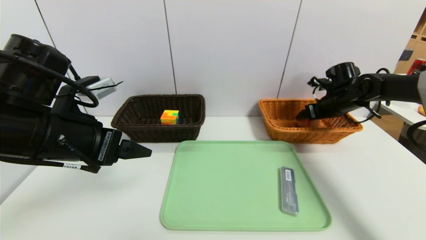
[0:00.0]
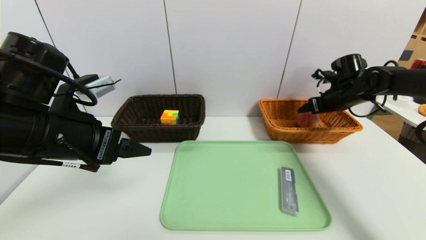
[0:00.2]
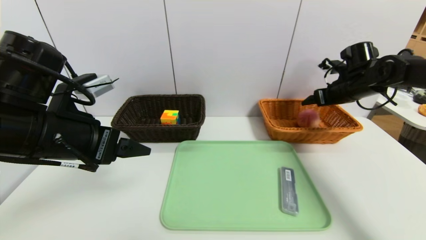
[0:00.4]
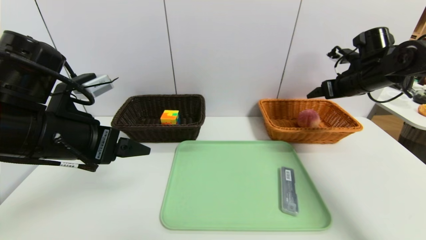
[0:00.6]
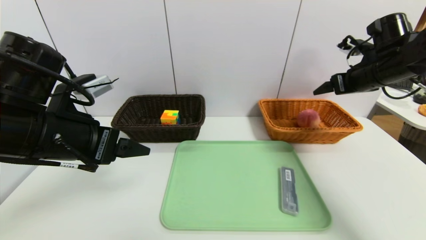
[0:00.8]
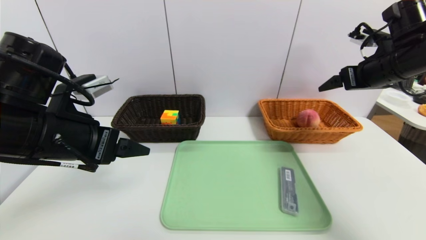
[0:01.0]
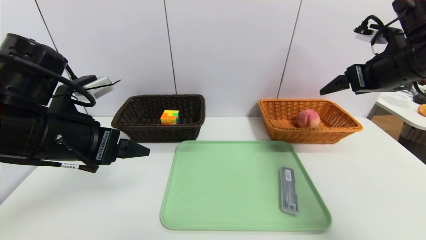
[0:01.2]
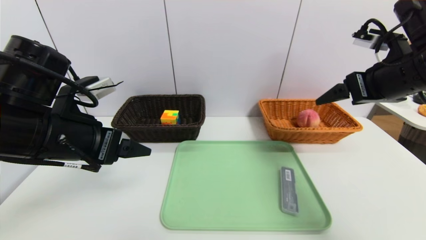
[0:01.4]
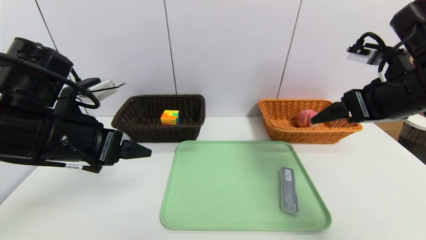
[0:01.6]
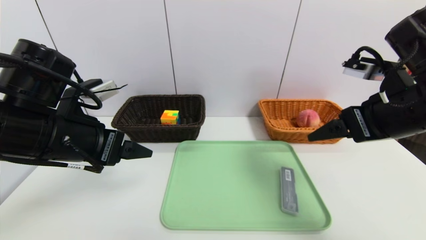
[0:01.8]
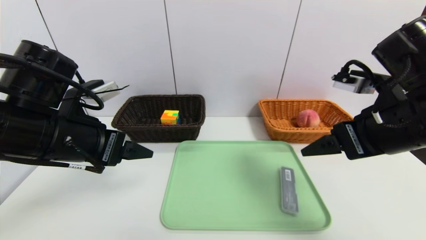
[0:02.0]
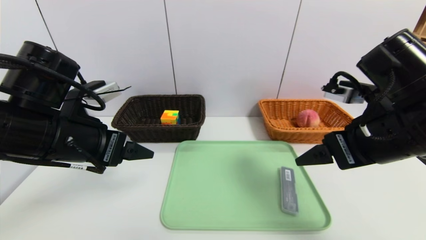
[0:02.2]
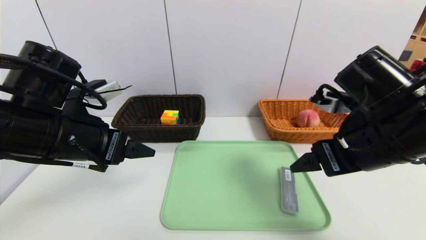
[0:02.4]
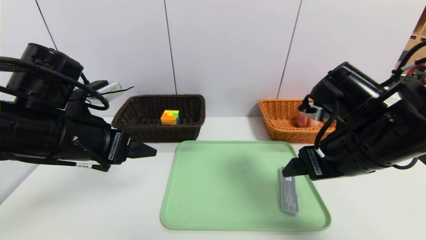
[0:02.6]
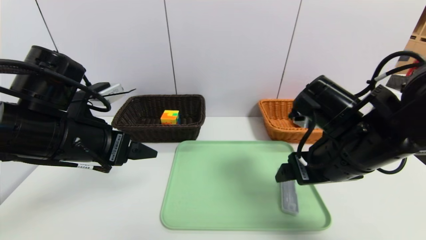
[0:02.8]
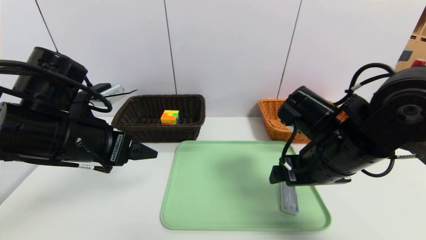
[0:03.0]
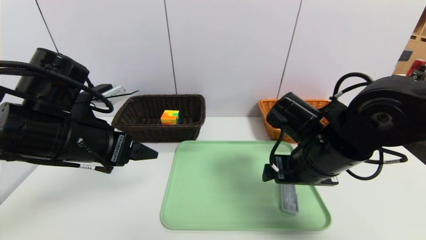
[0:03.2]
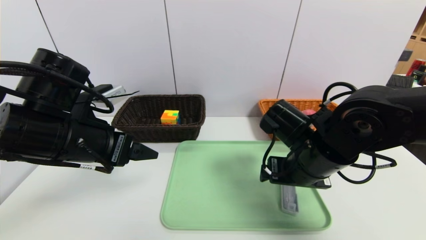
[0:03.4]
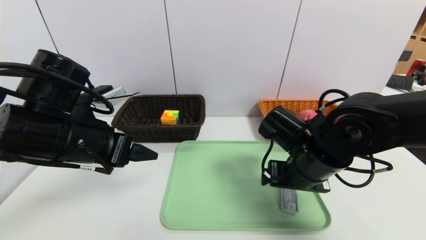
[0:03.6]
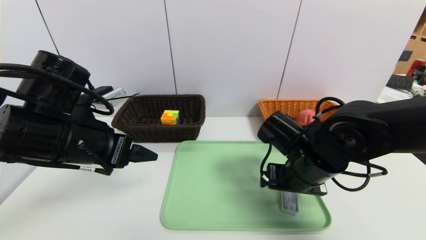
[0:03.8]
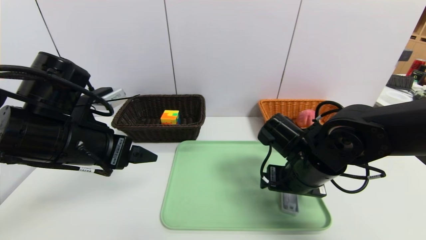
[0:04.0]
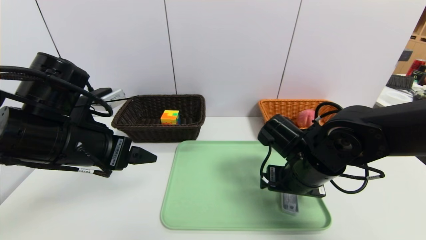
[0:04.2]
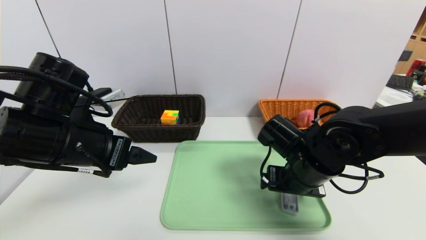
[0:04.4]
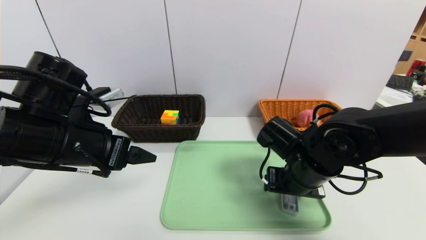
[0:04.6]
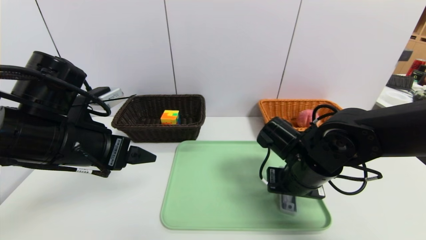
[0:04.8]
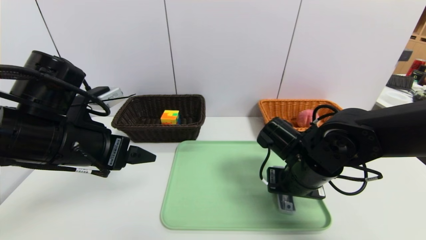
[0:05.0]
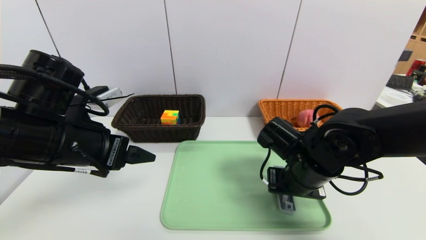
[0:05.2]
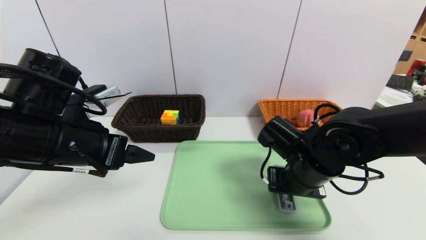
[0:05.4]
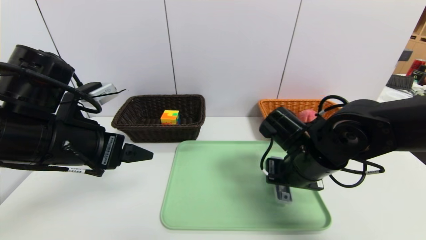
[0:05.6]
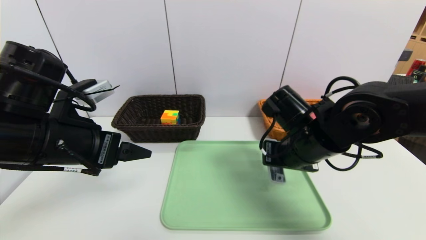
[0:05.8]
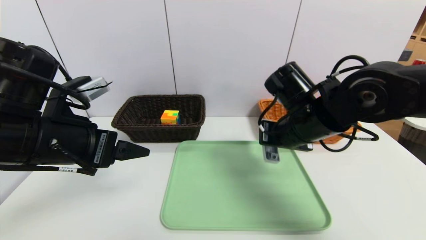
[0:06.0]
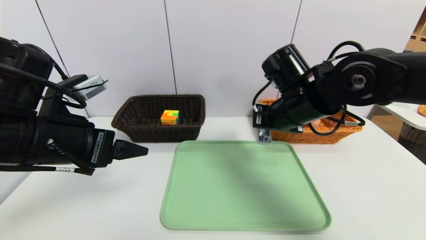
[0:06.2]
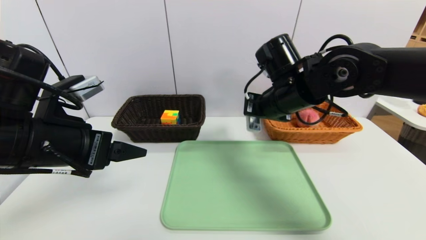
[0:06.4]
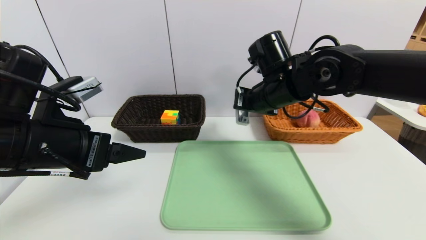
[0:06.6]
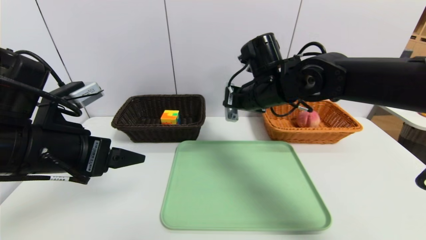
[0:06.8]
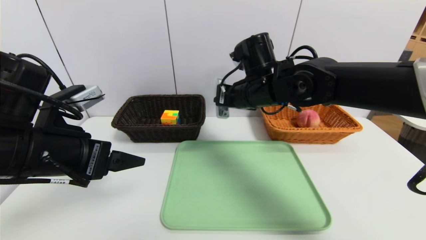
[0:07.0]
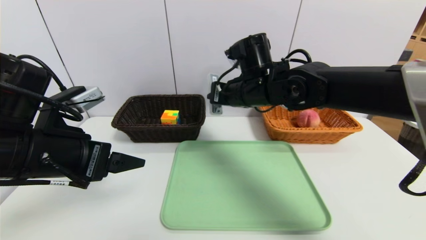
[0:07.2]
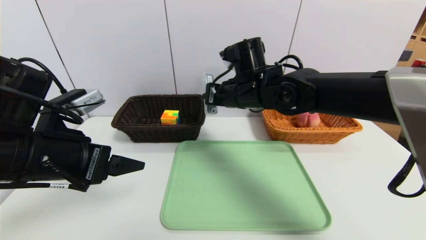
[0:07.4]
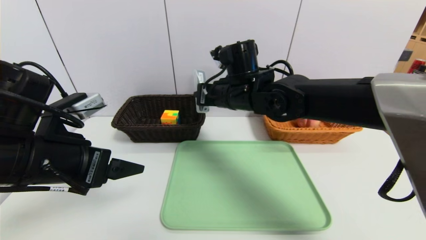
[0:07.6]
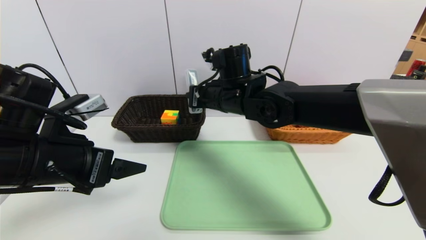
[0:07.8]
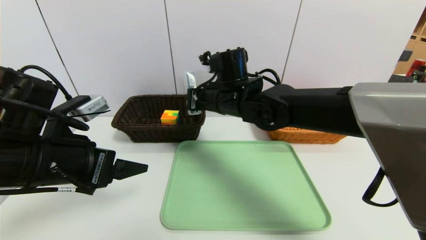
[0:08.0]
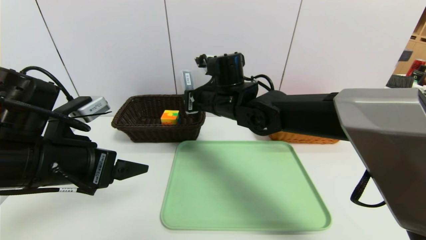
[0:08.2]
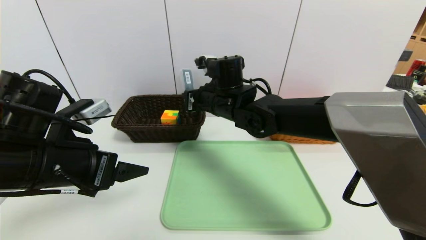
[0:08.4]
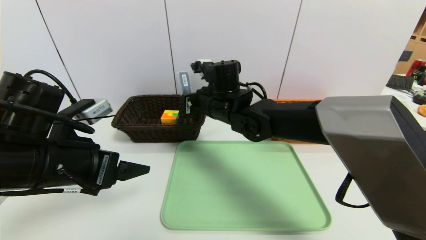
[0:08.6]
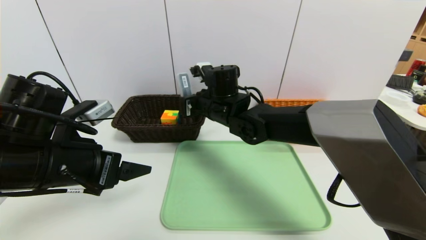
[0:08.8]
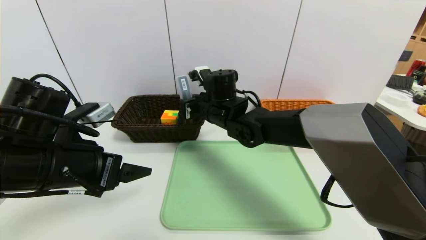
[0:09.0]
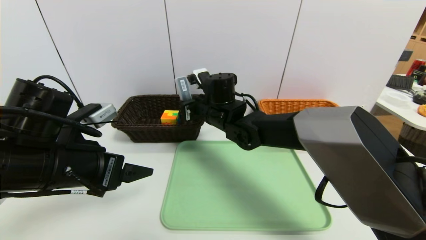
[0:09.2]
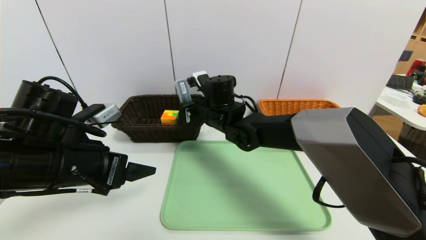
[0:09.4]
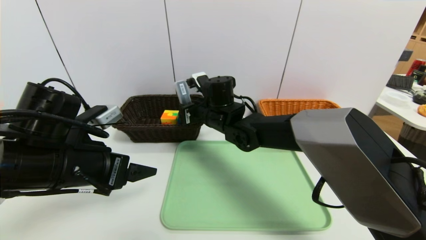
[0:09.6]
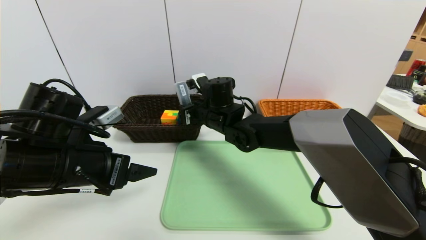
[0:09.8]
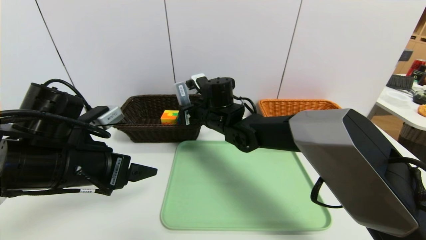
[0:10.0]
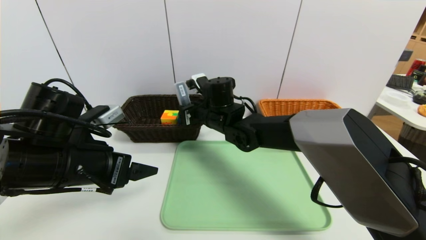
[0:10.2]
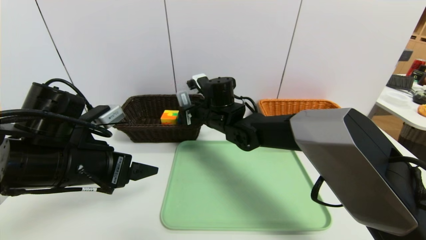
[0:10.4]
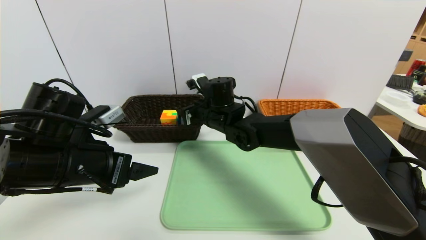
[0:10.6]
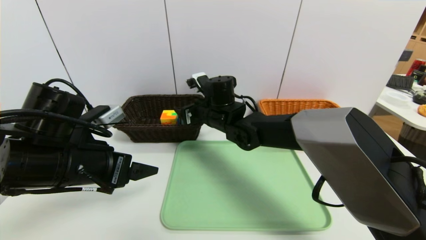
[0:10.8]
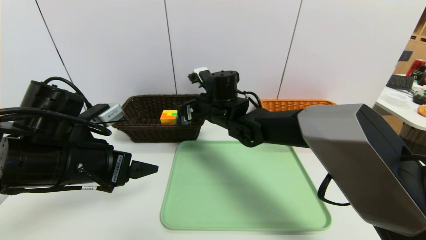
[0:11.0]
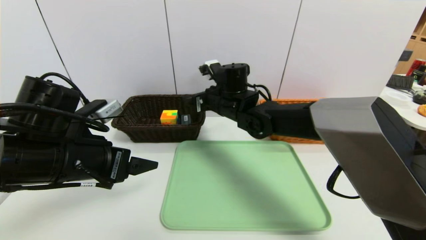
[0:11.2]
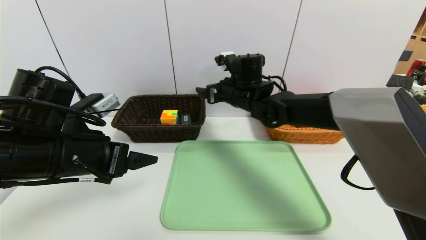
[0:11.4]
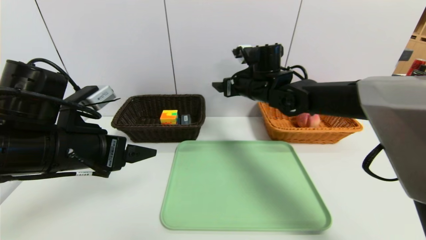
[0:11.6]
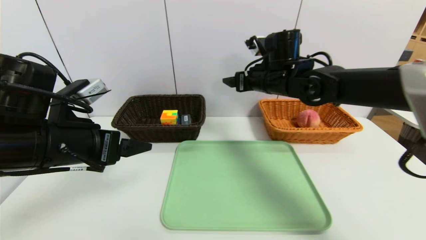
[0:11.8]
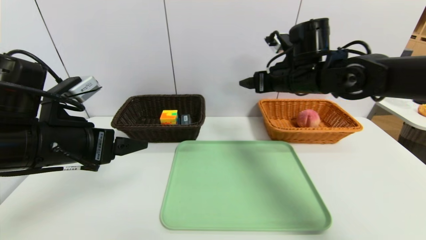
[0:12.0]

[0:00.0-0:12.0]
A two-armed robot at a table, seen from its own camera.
Task of the whole recording: place the food in the right basket with the right gripper, and place the non food items in the left basket with the left gripper.
0:00.0 to 0:01.6: The right gripper is displaced backward and upward by roughly 25 cm.
0:01.6 to 0:03.0: The right gripper moves to the left and downward, roughly 15 cm.
0:03.0 to 0:04.4: The right gripper heads downward, covering roughly 5 cm.
0:04.4 to 0:06.0: The right gripper is displaced upward by roughly 10 cm, and closes.
0:06.0 to 0:07.6: The right gripper goes some 15 cm to the left and forward.
0:07.6 to 0:09.0: The right gripper shifts about 5 cm downward.
0:09.0 to 0:10.4: The grippers move only a little.
0:10.4 to 0:12.0: The right gripper is displaced to the right and upward by approximately 20 cm, and opens its fingers.

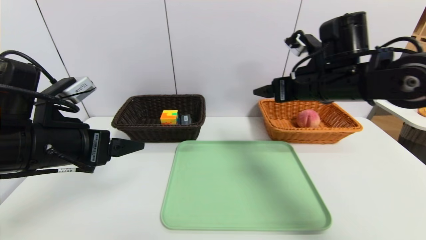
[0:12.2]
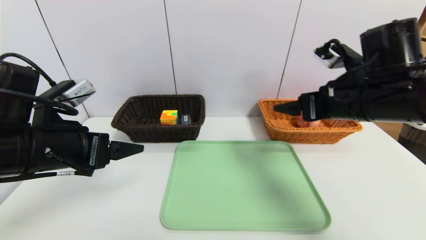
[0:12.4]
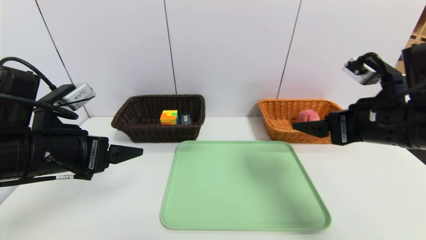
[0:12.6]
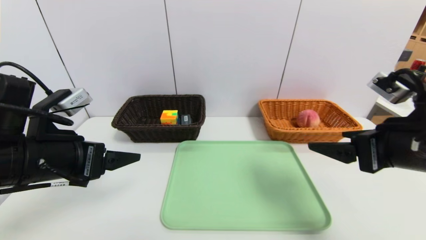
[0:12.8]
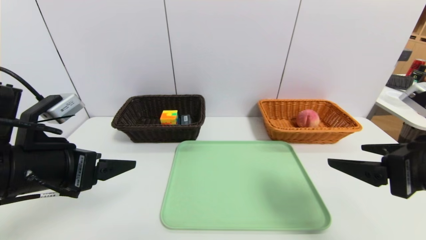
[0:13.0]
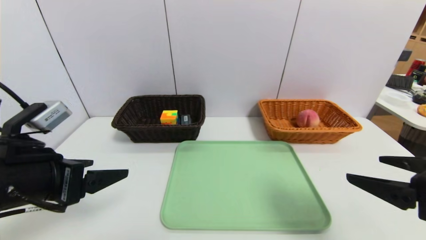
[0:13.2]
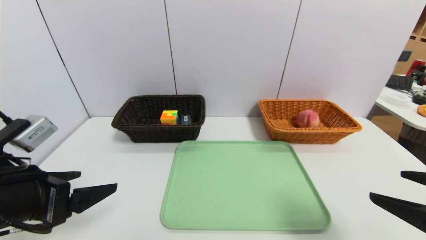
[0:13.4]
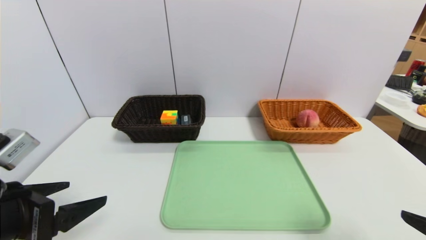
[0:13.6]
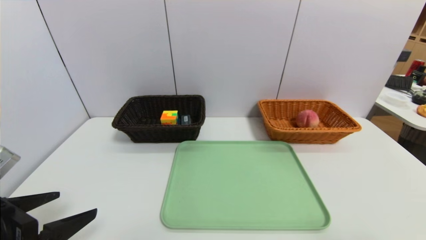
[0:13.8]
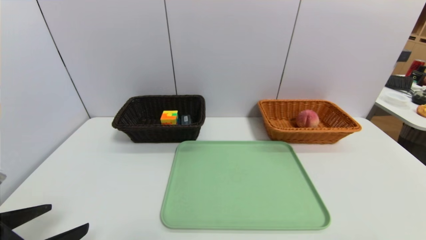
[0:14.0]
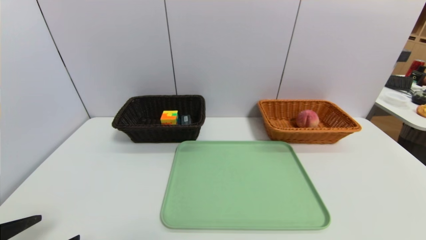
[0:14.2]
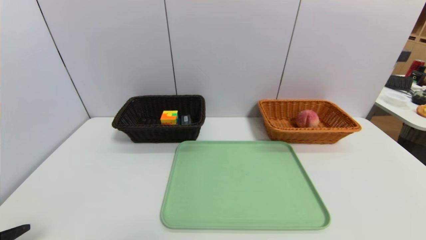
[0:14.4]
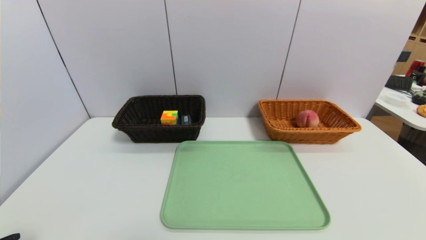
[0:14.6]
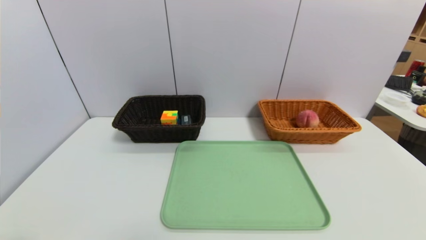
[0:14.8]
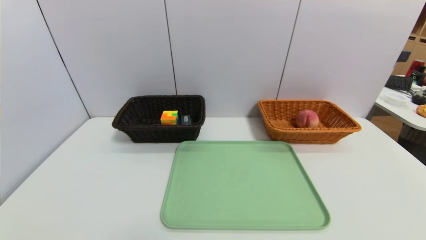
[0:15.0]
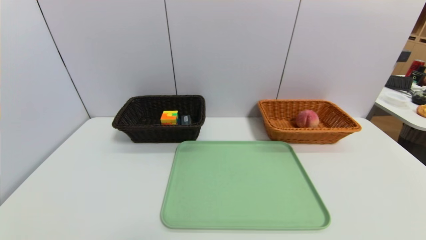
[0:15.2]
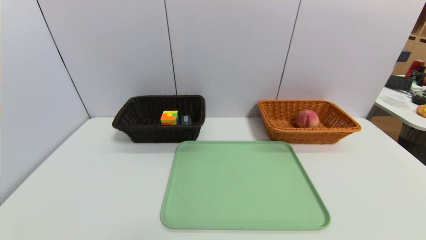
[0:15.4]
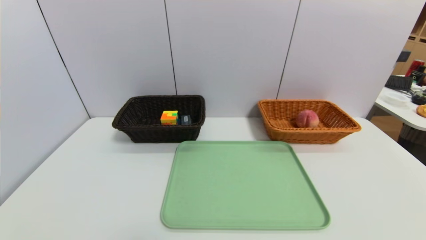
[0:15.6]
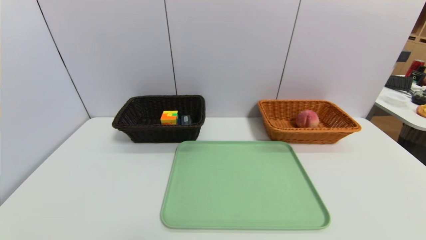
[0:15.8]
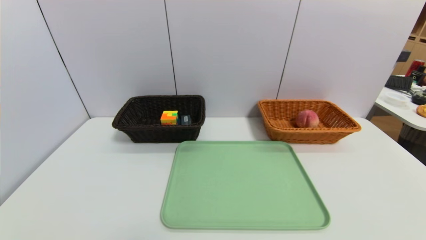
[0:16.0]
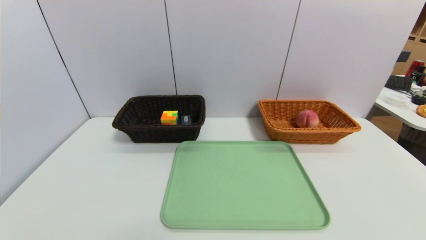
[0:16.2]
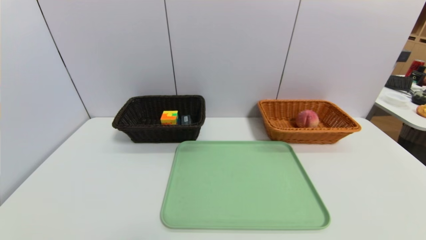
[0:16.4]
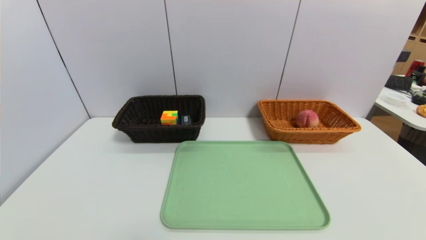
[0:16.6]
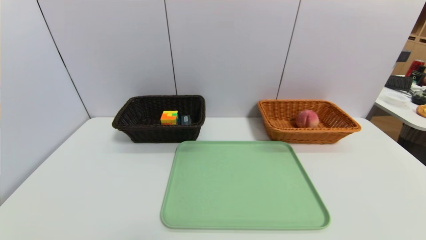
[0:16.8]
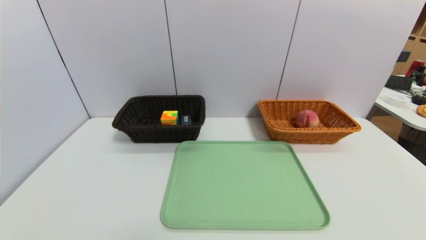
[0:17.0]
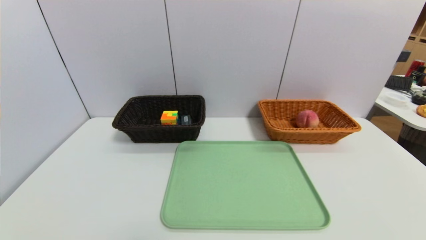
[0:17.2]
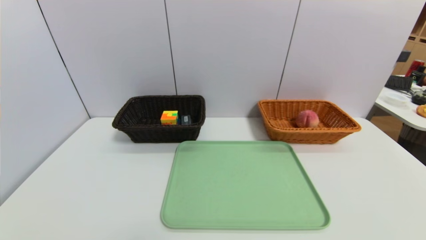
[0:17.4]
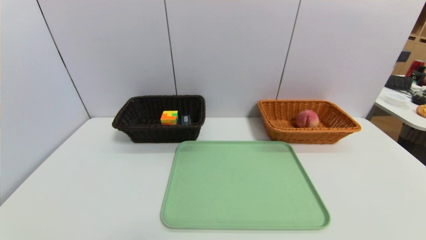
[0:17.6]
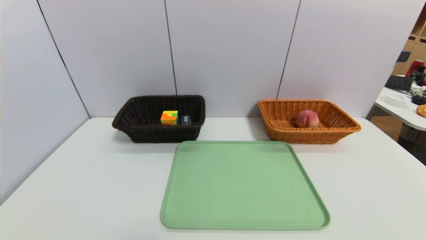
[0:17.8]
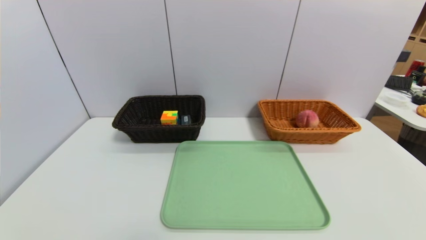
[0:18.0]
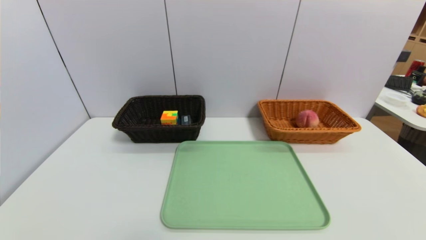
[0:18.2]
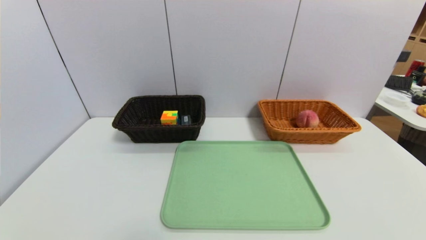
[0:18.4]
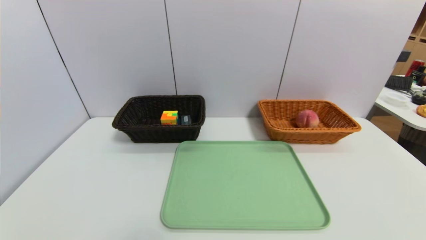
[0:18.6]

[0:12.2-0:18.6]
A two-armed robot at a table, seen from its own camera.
Task of the whole recording: place the food in the right basket with the right gripper, and place the non food items in the left basket with the left gripper.
0:12.2 to 0:13.8: The left gripper moves backward, roughly 10 cm. Meanwhile the right gripper is displaced backward and to the right by some 35 cm.
0:13.8 to 0:15.4: The left gripper travels downward and backward by roughly 15 cm.
